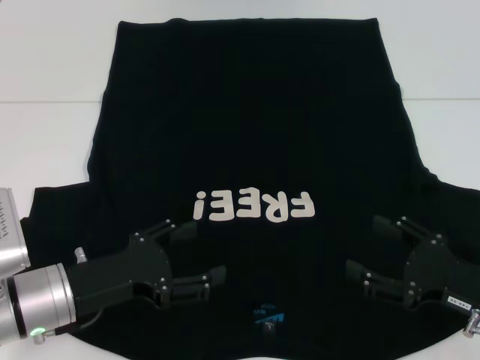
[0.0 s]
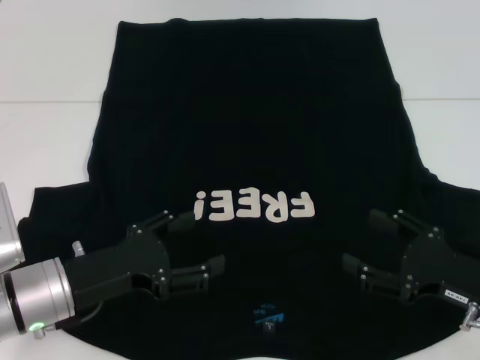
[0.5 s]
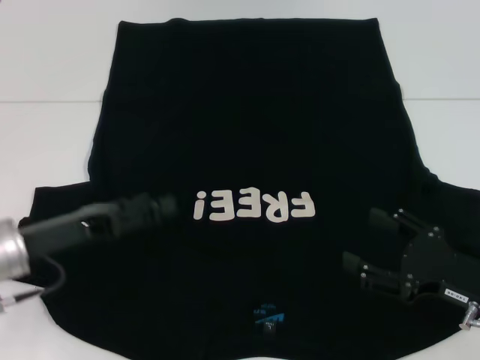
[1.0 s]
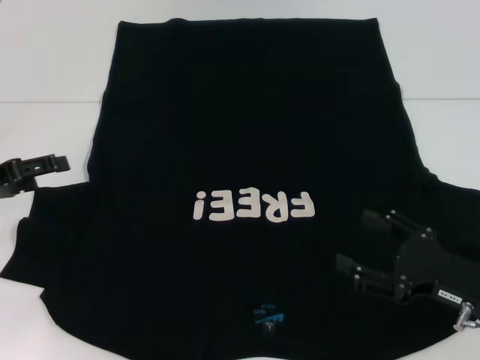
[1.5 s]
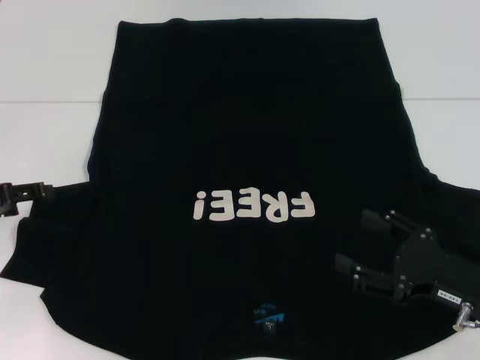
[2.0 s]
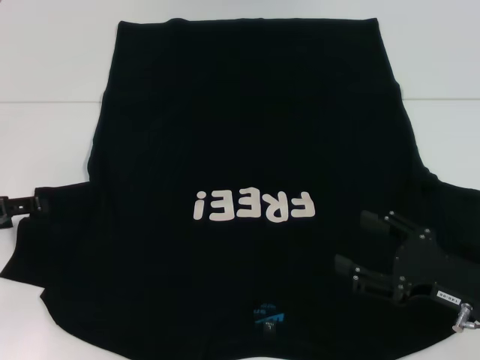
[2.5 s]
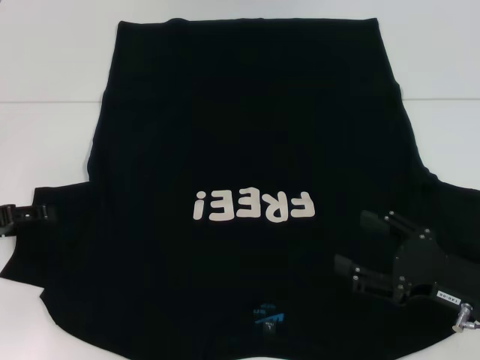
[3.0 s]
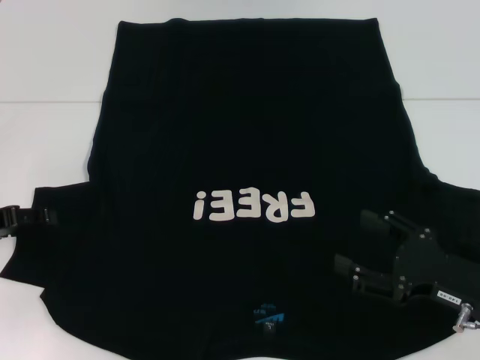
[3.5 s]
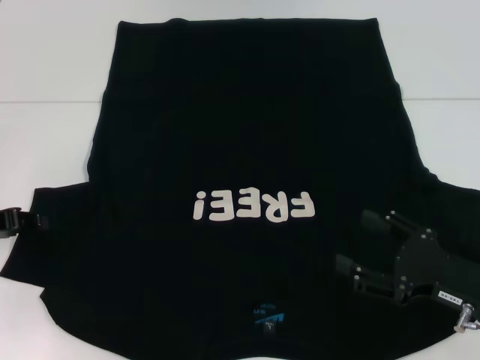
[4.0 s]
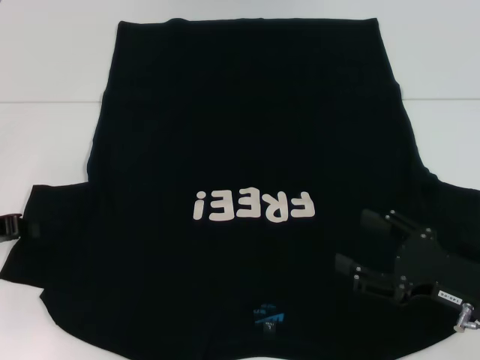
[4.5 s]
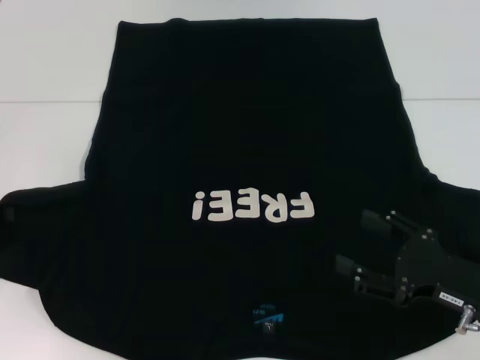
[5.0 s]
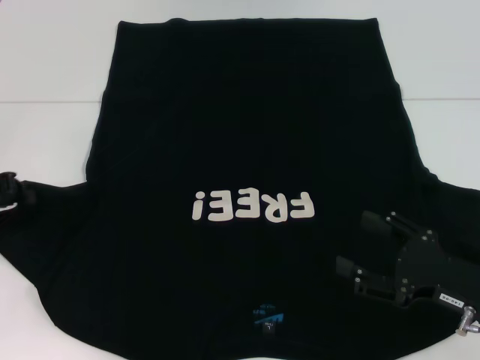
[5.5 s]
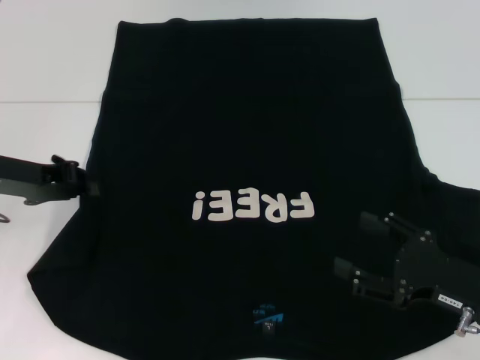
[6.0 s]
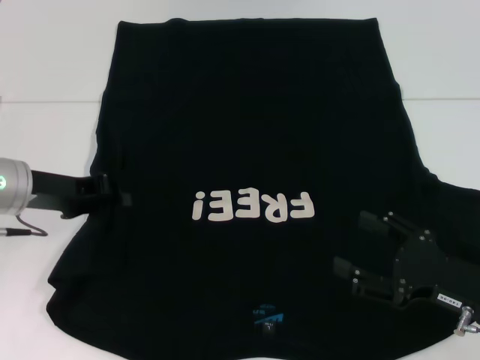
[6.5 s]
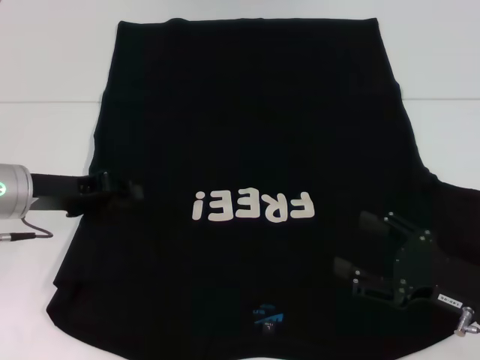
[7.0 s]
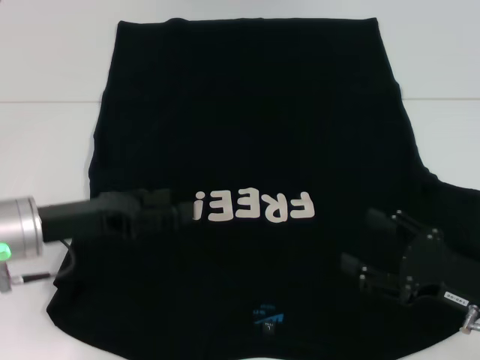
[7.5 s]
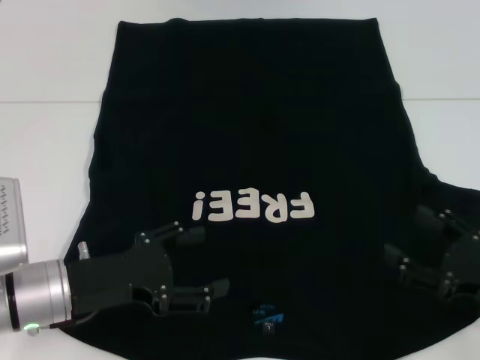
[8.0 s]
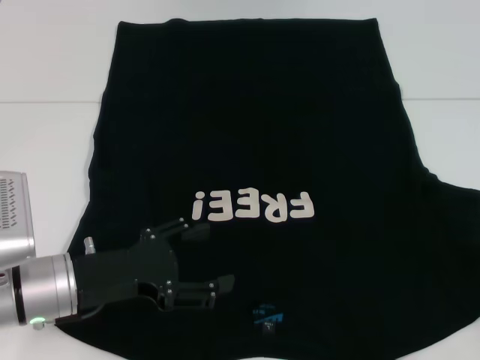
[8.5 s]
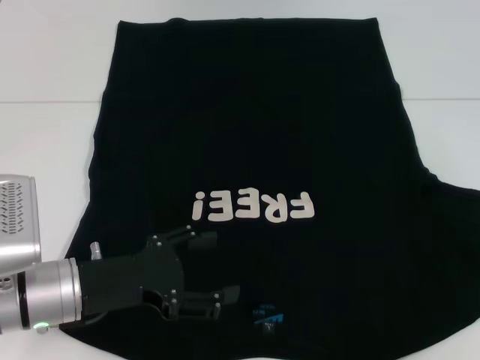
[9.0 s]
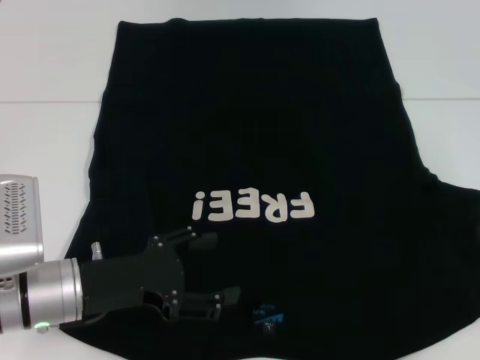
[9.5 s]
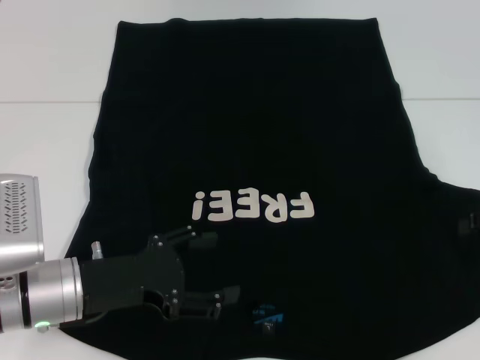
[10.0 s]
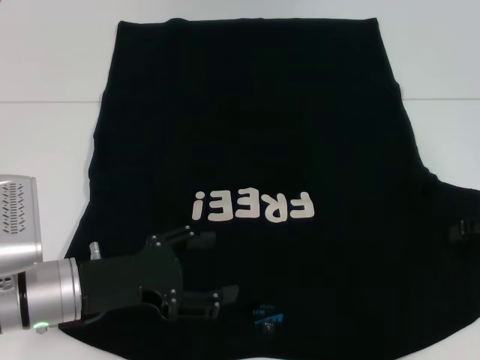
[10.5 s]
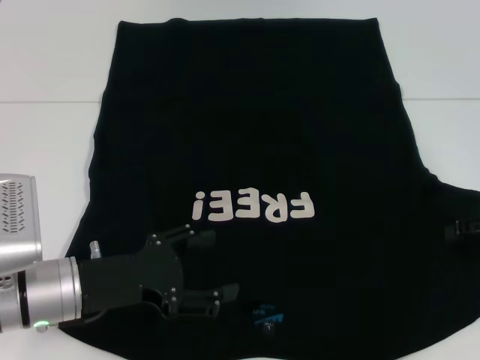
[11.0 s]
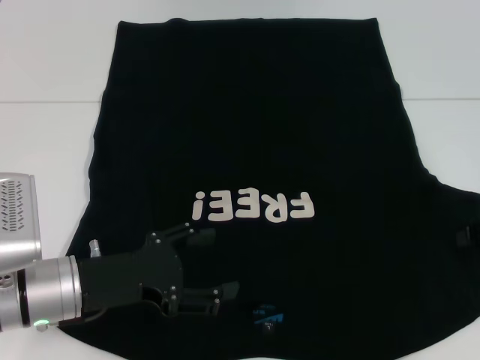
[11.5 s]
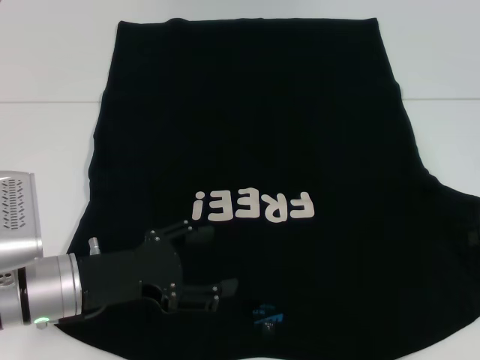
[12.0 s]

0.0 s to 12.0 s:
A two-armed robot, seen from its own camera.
Step, 0.0 to 7.5 s: Fold the bottom left sleeve with your left hand.
0.0 to 2.0 s: The left gripper is displaced to the left and forward by about 15 cm.
2.0 to 4.0 s: The left gripper closes.
4.0 to 6.0 s: The left gripper heads to the right, covering approximately 5 cm, and closes.
6.0 to 8.0 s: The left gripper goes approximately 15 cm backward, downward and to the right, and opens.
8.0 to 10.0 s: The right gripper is displaced forward, upward and to the right by roughly 15 cm.

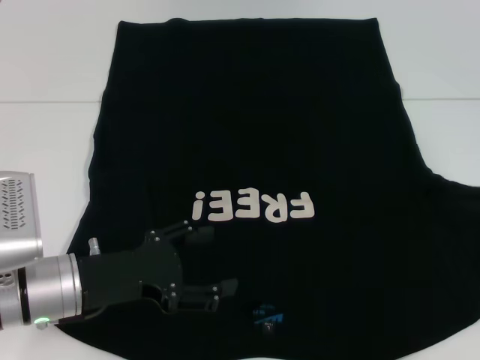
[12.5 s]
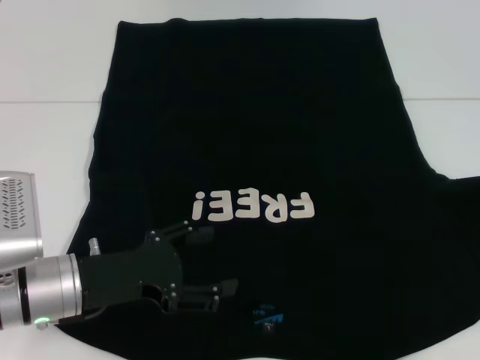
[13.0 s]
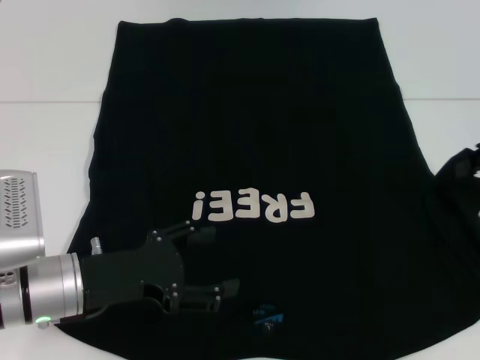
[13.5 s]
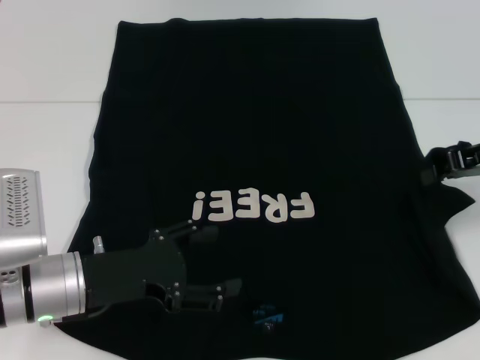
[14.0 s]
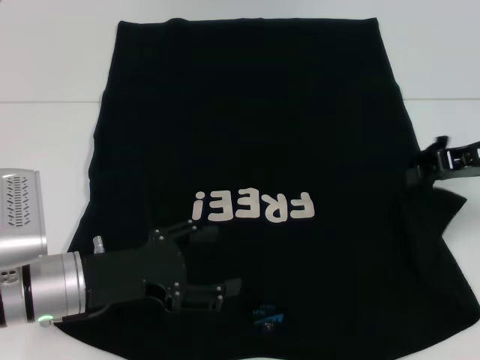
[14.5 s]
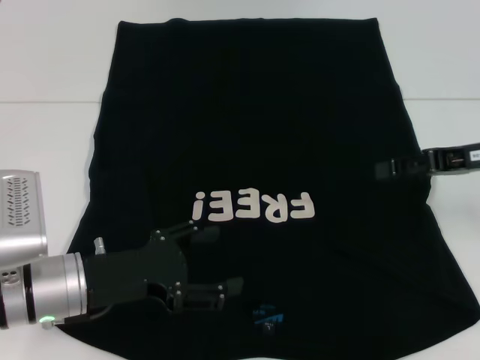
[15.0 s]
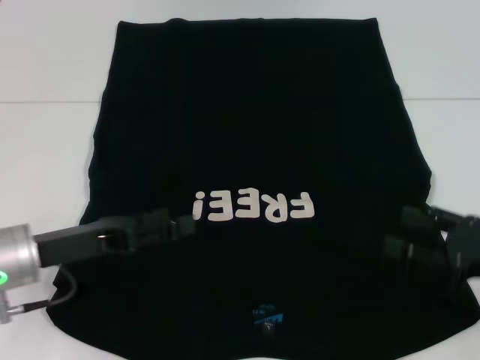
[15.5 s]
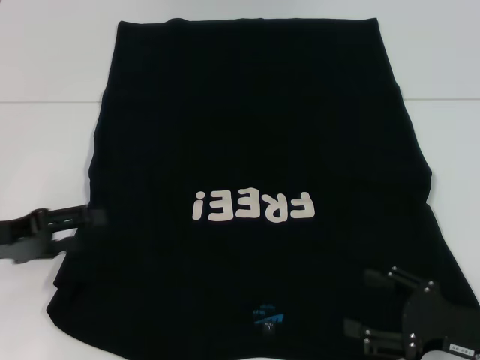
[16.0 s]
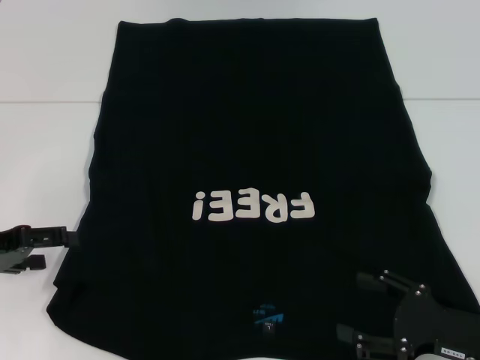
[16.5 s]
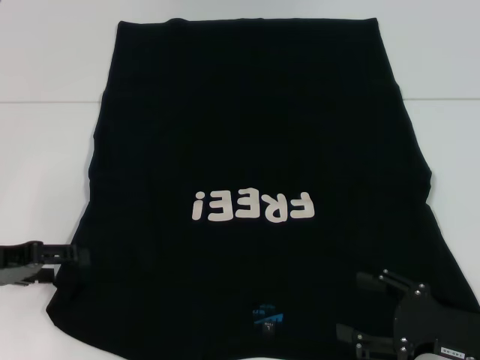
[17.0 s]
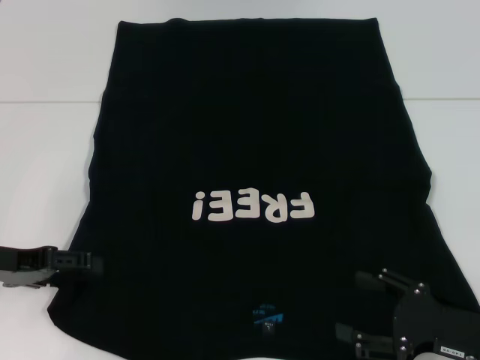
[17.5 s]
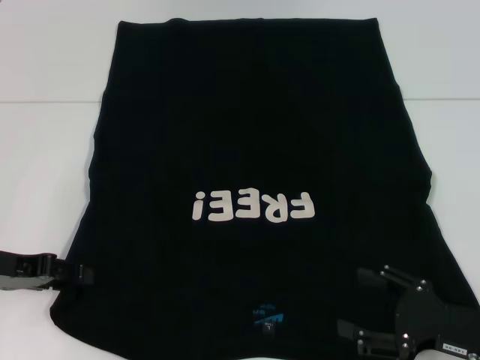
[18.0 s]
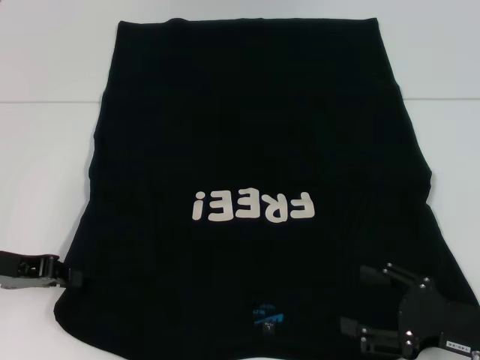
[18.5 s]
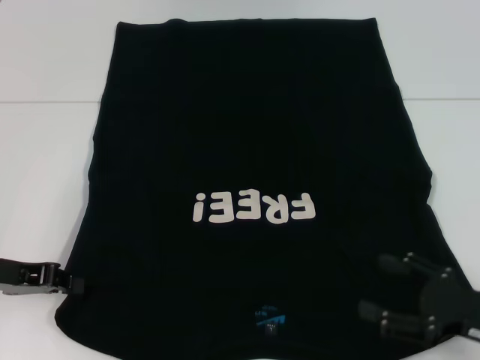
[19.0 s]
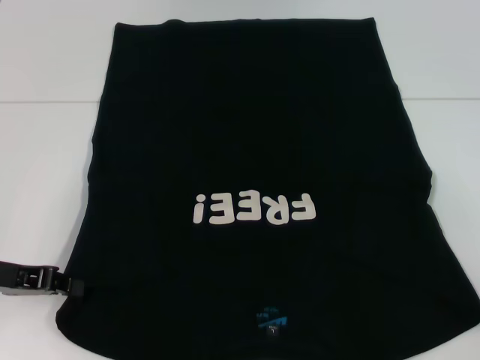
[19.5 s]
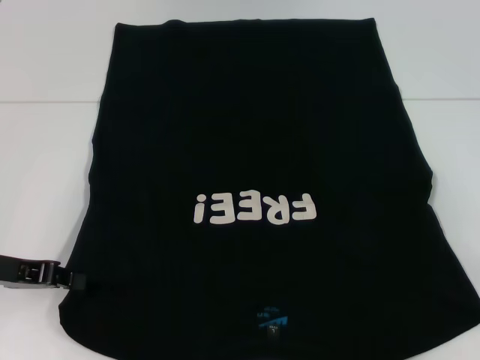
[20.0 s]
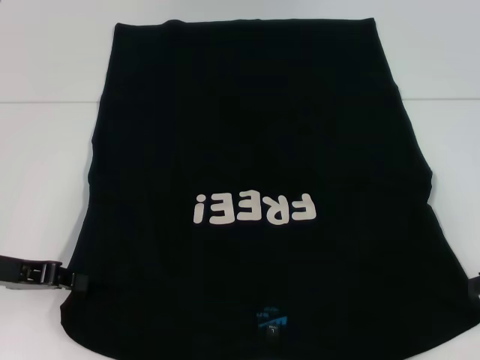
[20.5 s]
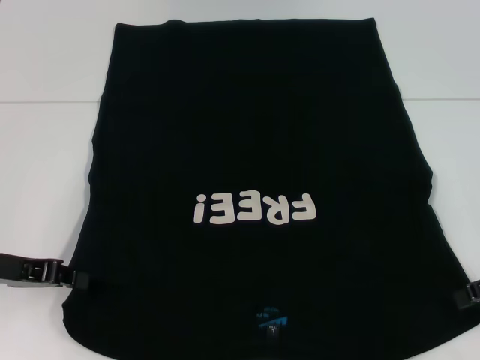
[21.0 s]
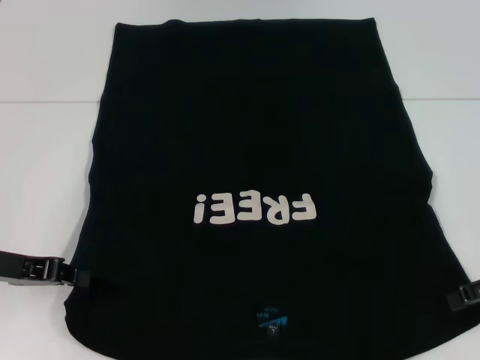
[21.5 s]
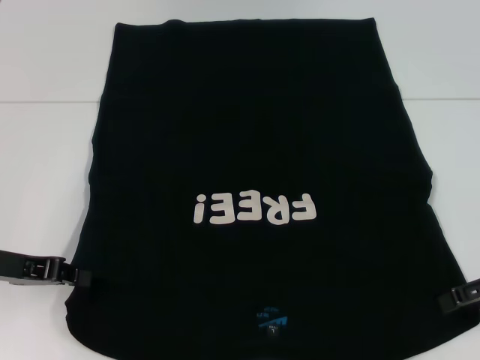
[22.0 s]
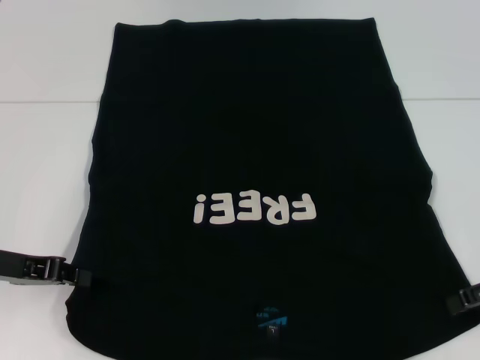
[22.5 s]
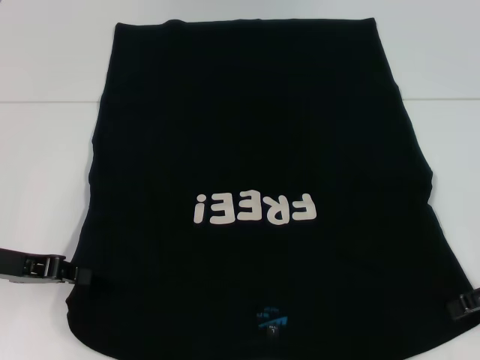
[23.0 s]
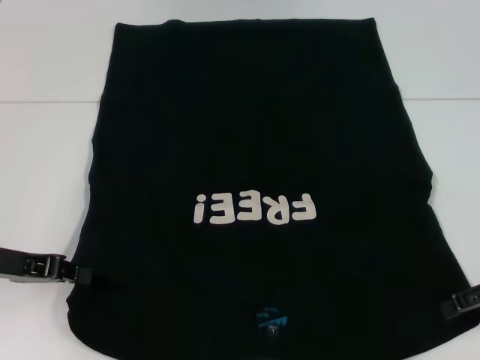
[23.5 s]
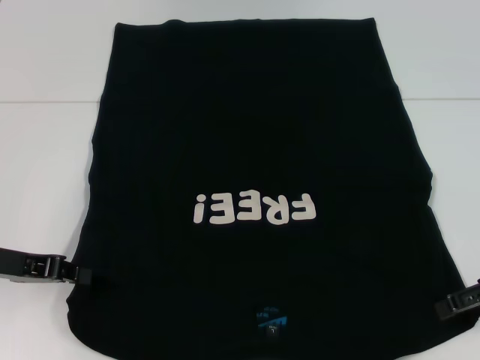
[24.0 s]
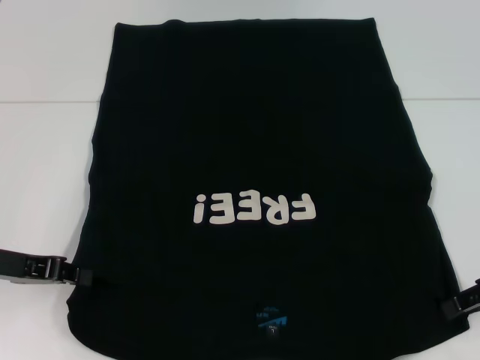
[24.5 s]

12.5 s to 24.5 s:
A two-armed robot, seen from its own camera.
Step, 12.5 to 15.0 s: Fold the bottom right sleeve with your right hand.
12.5 to 14.5 s: The right gripper is displaced to the left by about 10 cm.
14.5 to 16.5 s: The right gripper goes some 25 cm backward and downward, and opens up; the left gripper goes some 15 cm to the left.
16.5 to 18.5 s: The left gripper closes up.
18.5 to 20.5 s: The right gripper heads upward, to the right and forward, covering approximately 15 cm.
20.5 to 22.5 s: There are only small adjustments of the grippers.
22.5 to 24.5 s: The right gripper closes its fingers.

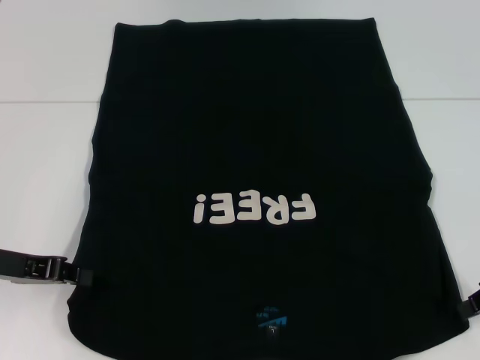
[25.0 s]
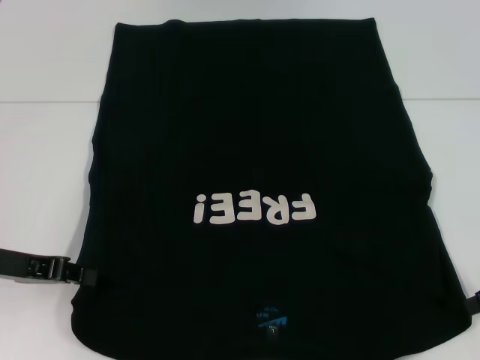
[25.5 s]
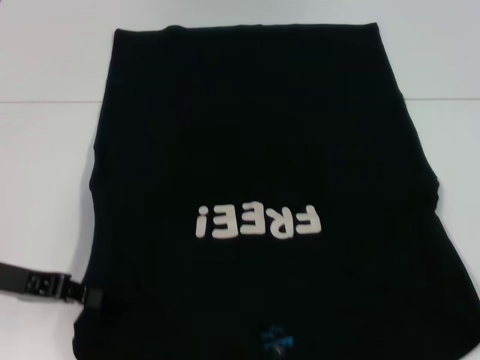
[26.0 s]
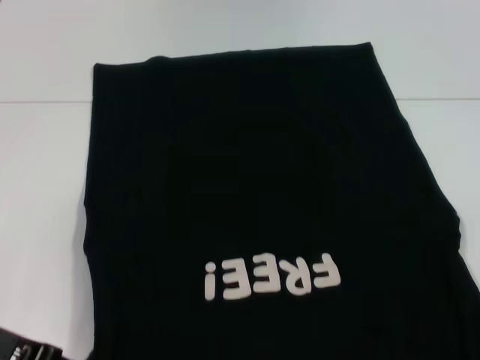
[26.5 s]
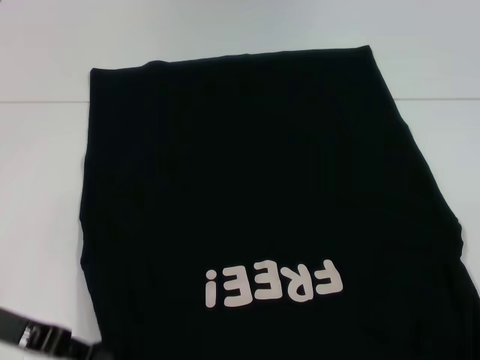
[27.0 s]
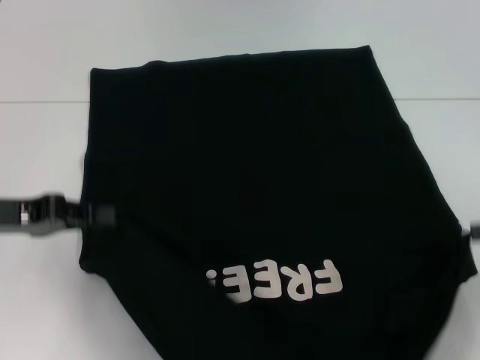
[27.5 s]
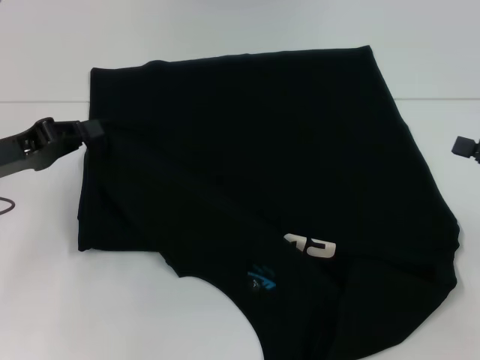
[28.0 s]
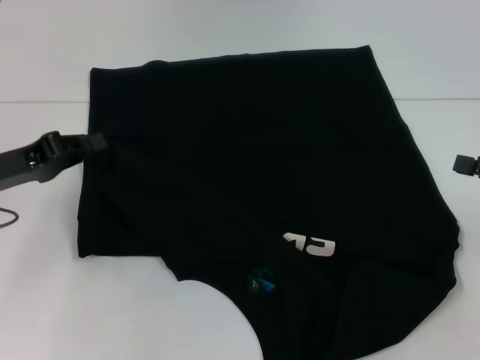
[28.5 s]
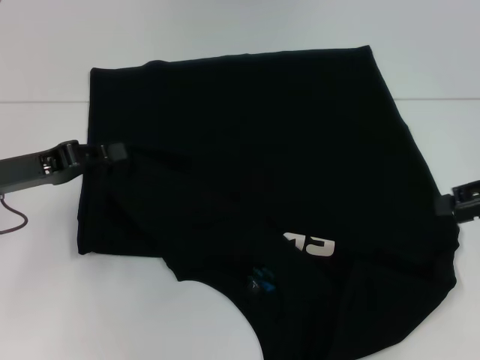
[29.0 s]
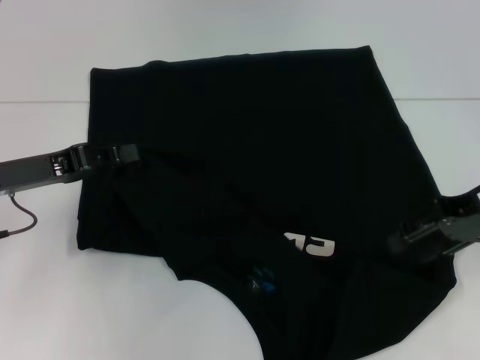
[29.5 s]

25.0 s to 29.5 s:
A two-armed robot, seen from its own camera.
27.0 to 29.5 s: The left gripper shifts some 5 cm forward; the right gripper heads forward and to the left, covering some 10 cm, and opens its fingers.
